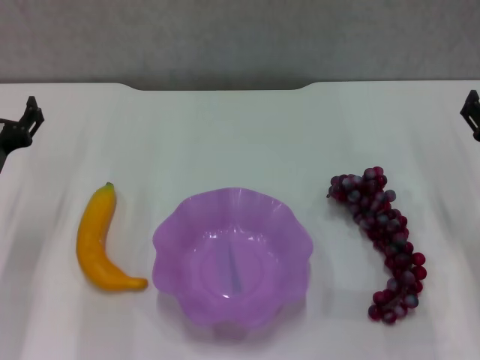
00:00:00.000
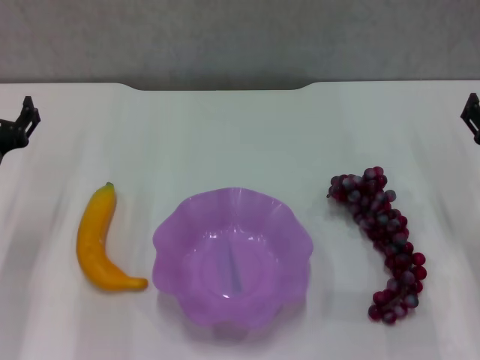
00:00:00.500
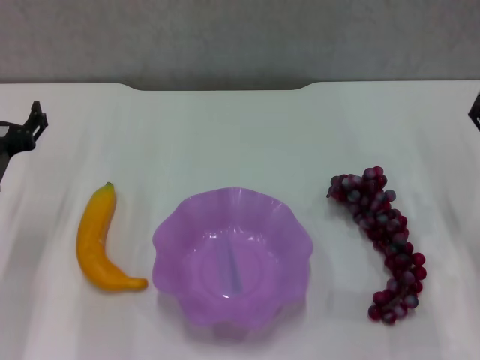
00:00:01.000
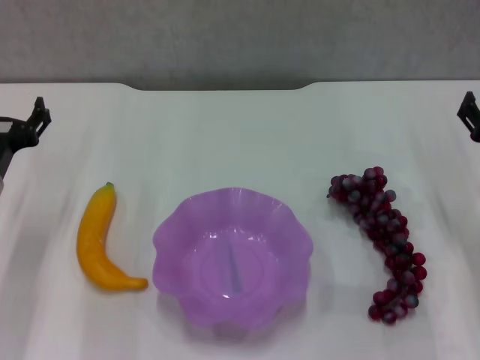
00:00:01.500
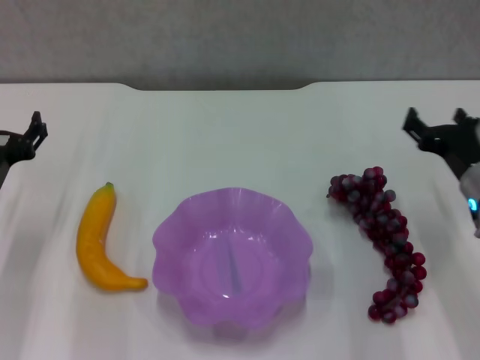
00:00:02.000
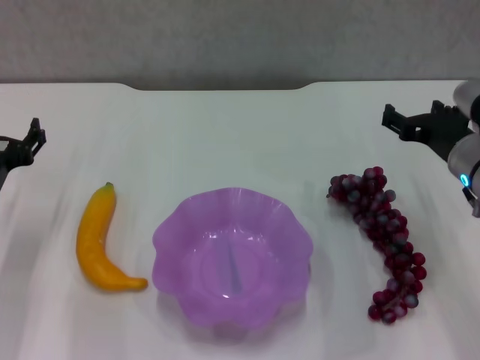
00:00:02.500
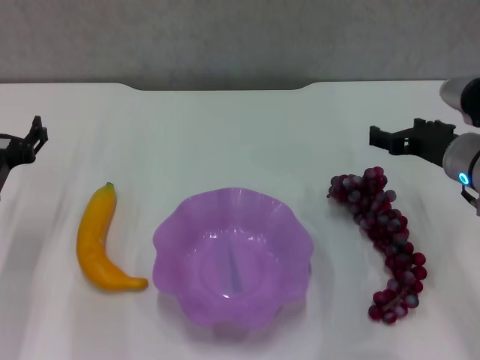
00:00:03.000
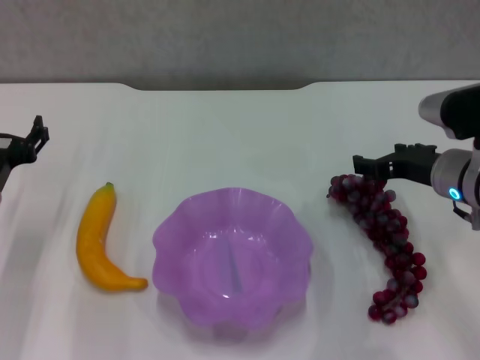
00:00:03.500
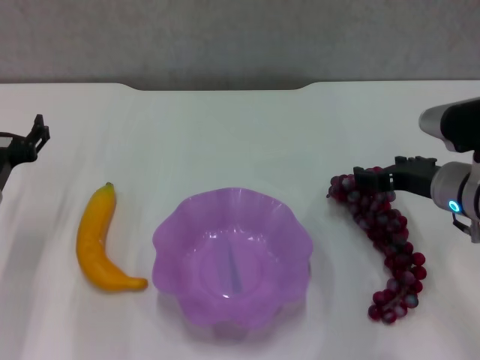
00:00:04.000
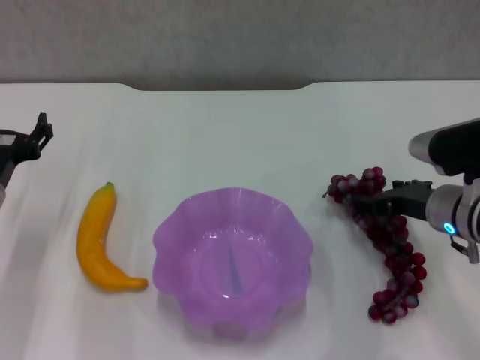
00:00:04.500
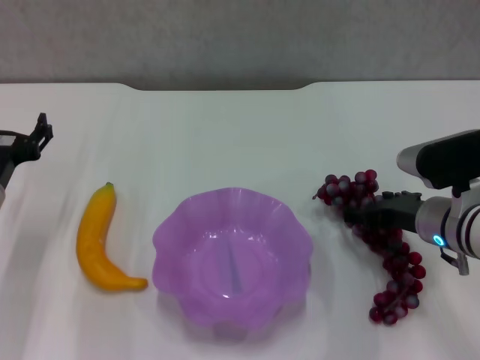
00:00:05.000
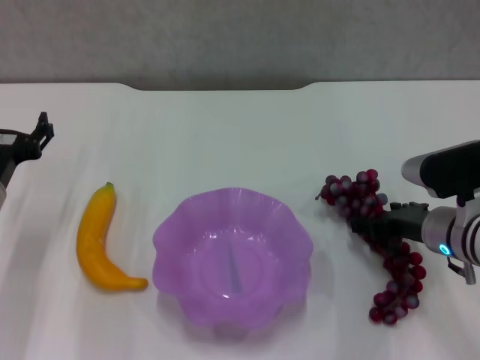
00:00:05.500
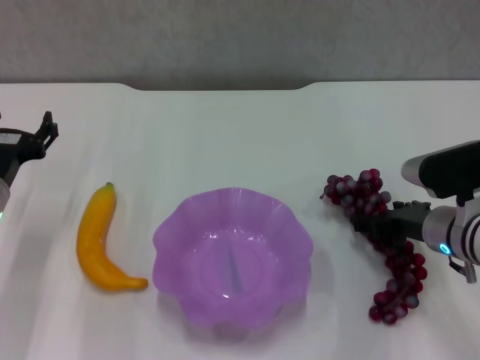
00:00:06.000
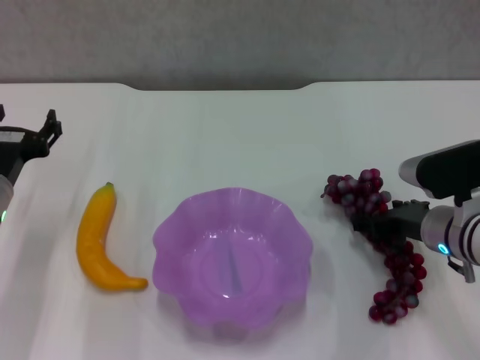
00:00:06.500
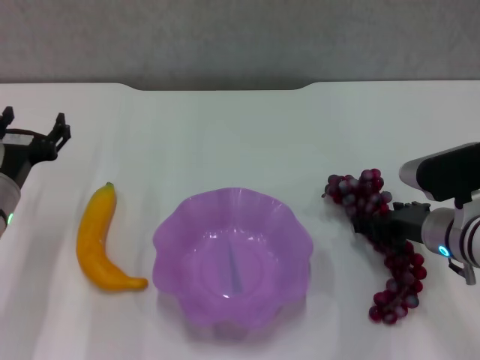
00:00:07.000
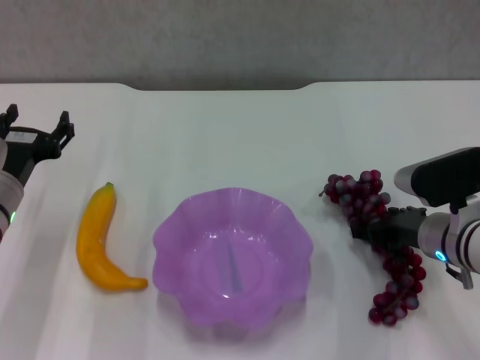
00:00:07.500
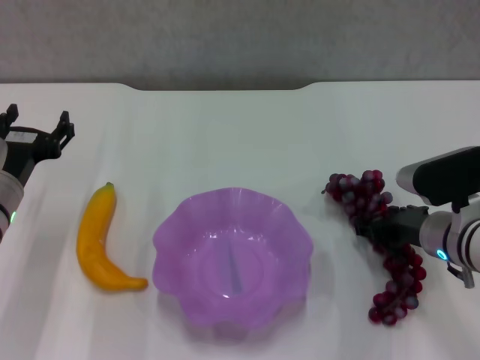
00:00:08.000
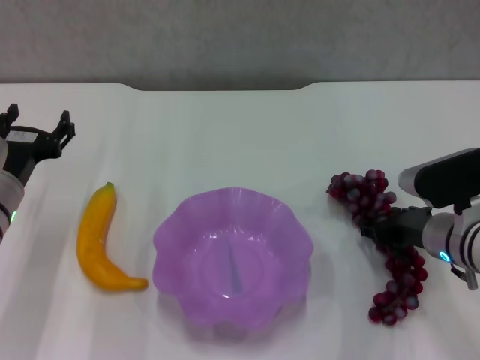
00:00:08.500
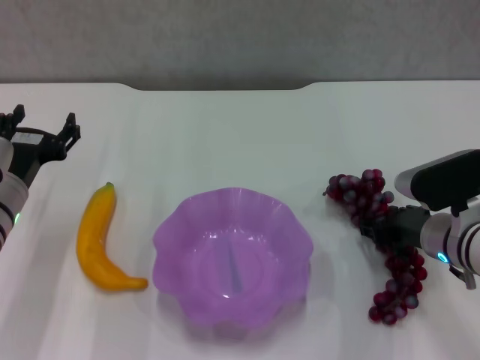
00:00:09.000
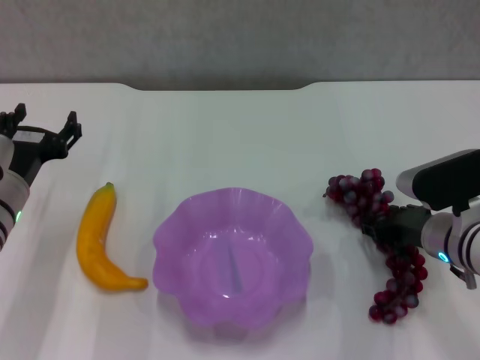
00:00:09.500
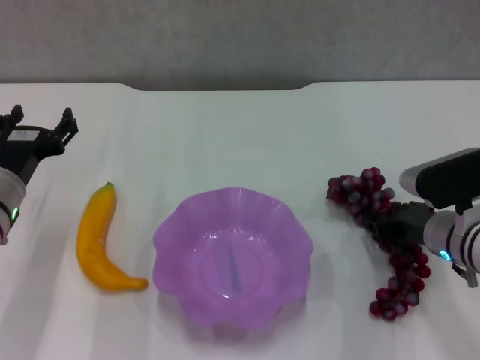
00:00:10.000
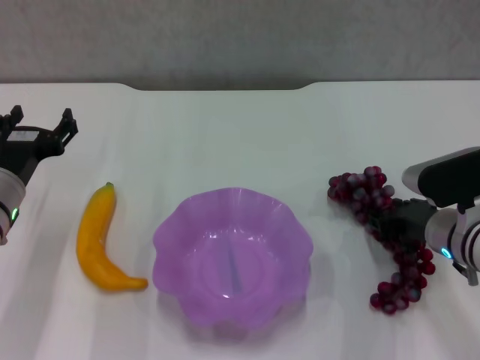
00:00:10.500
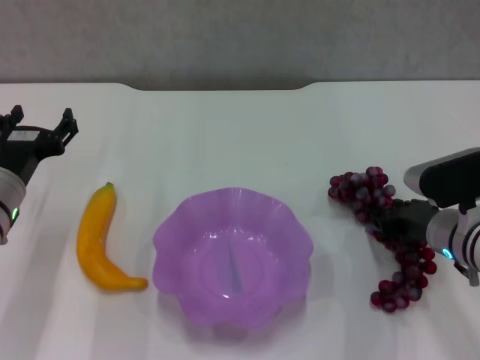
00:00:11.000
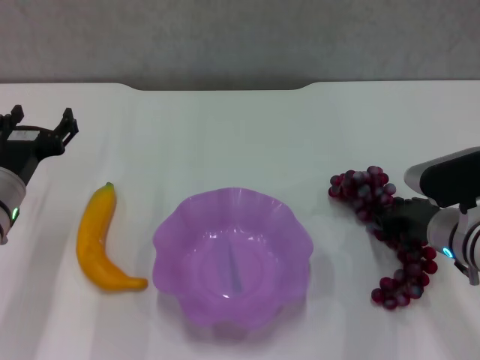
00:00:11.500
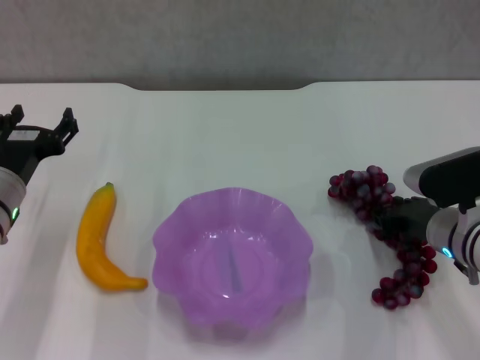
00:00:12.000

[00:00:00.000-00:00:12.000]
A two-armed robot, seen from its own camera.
Step, 00:00:00.000 to 00:00:09.500: Grasp the grape with right gripper.
00:00:00.000 to 00:00:02.000: There are only small adjustments of the grippers.
00:00:04.000 to 00:00:06.000: The grippers stay close to where they were, moving slightly.
00:00:06.000 to 00:00:08.000: Both grippers stay about where they are.
00:00:08.000 to 00:00:10.000: The grippers stay close to where they were, moving slightly.
00:00:10.000 to 00:00:12.000: Both grippers stay about where they are.

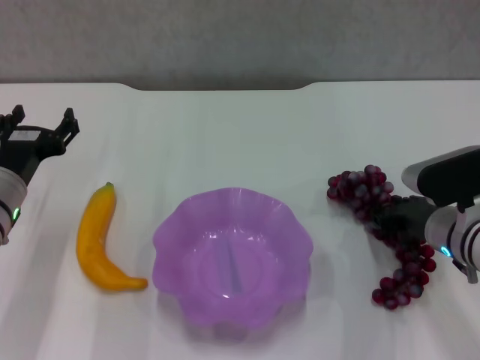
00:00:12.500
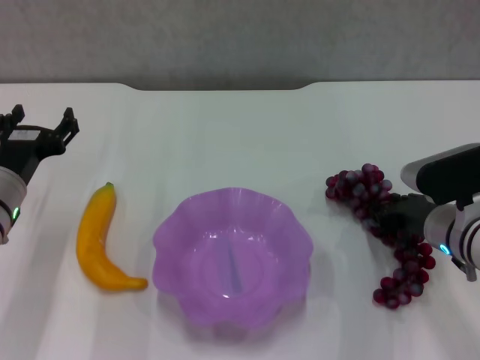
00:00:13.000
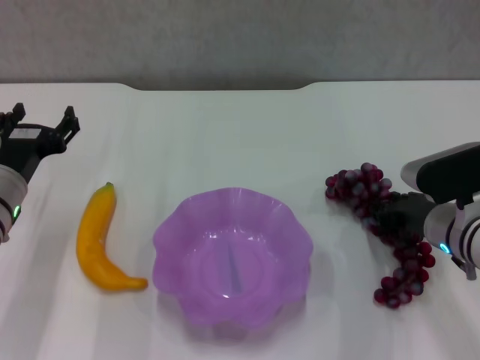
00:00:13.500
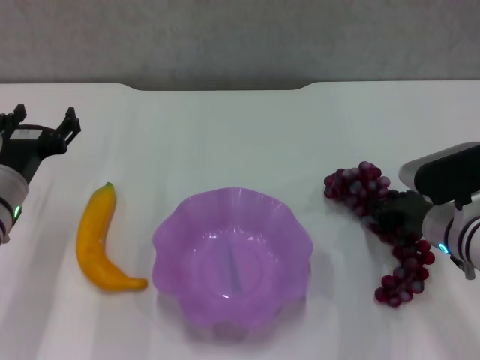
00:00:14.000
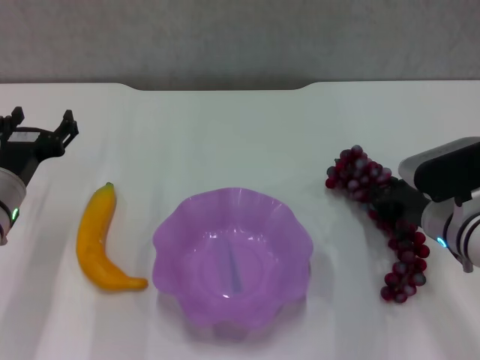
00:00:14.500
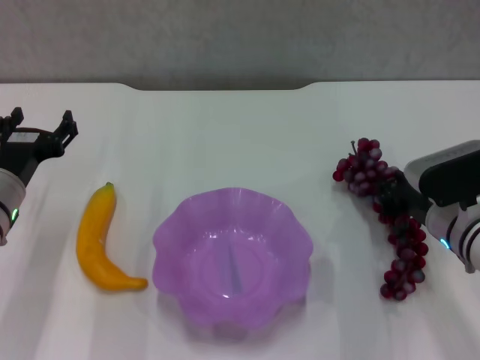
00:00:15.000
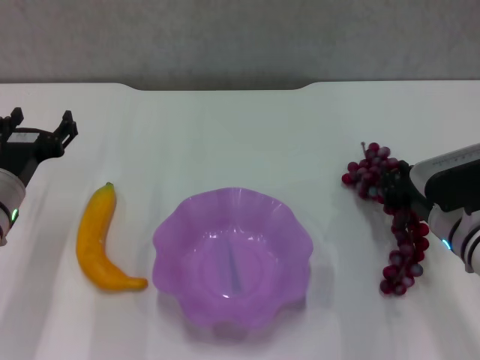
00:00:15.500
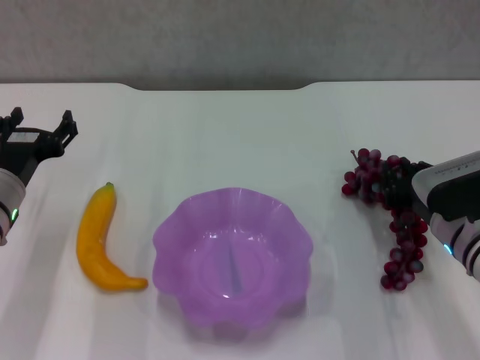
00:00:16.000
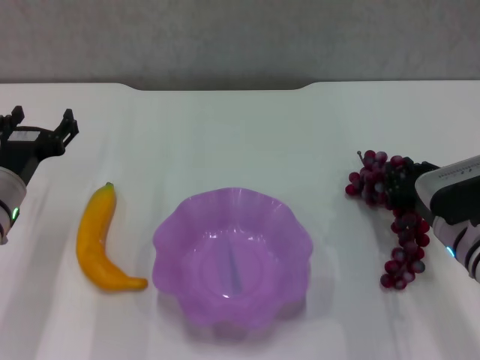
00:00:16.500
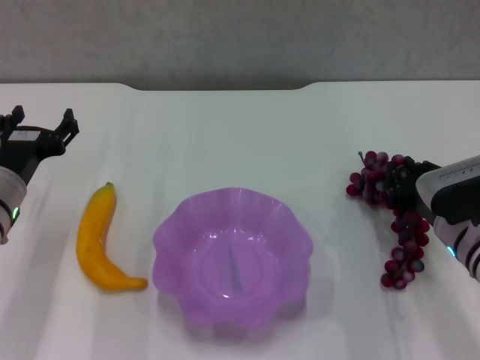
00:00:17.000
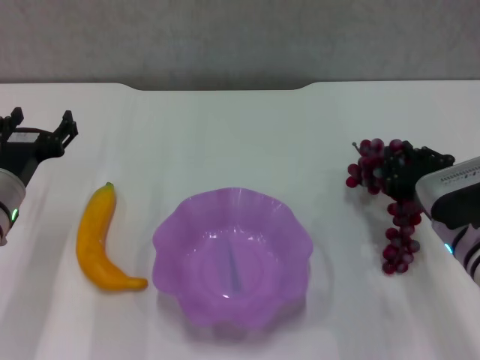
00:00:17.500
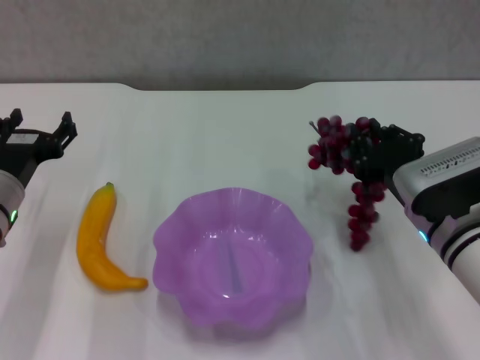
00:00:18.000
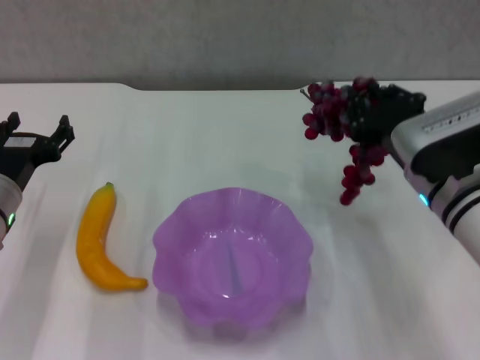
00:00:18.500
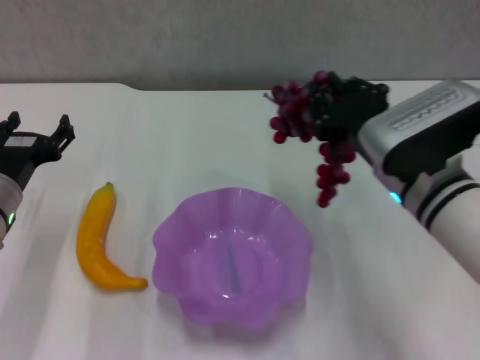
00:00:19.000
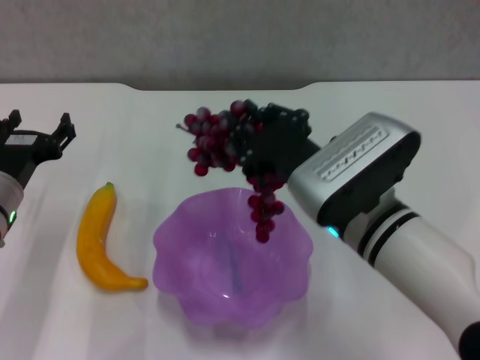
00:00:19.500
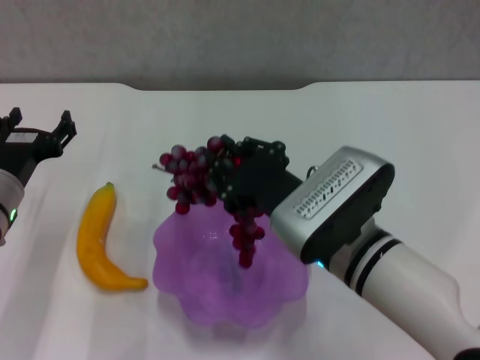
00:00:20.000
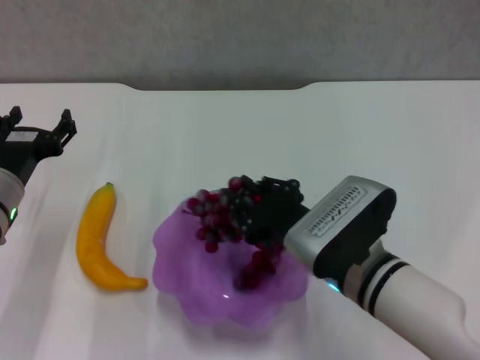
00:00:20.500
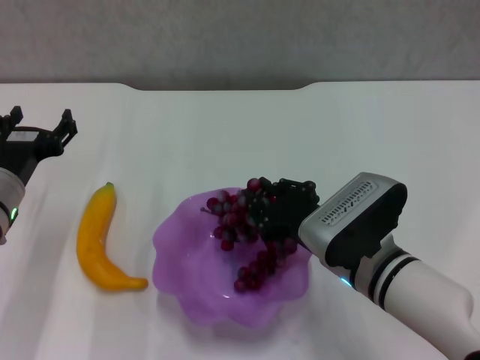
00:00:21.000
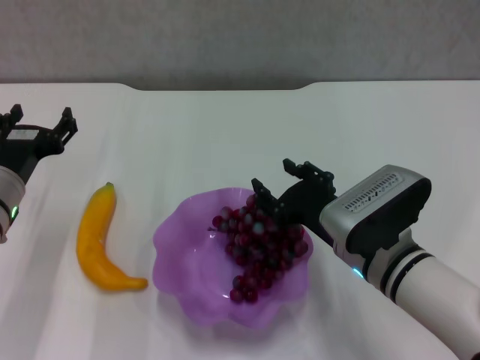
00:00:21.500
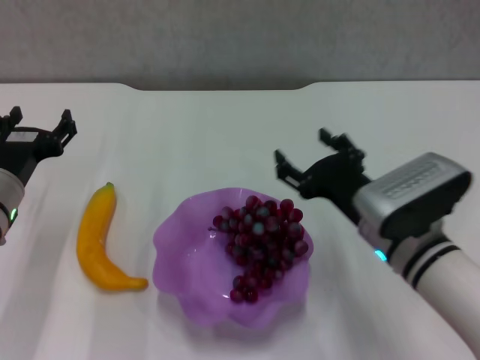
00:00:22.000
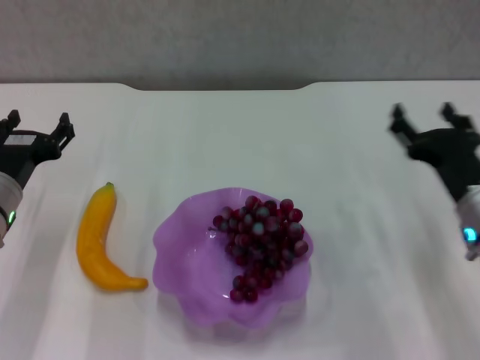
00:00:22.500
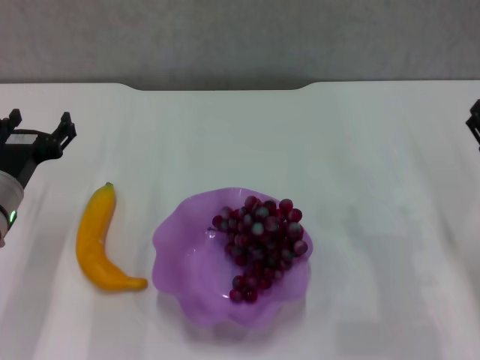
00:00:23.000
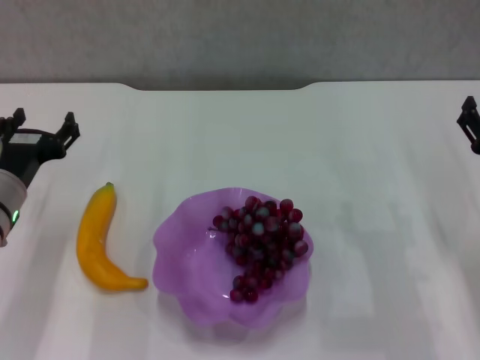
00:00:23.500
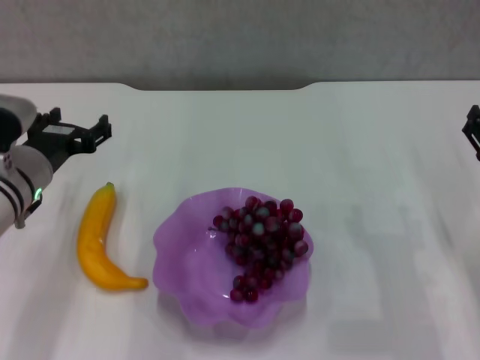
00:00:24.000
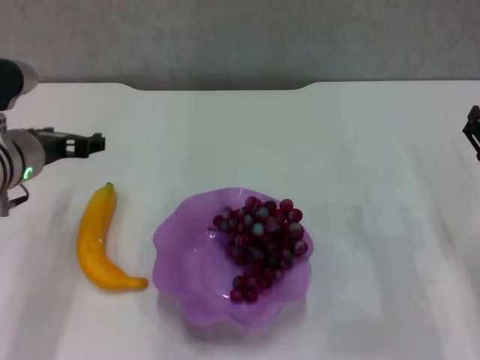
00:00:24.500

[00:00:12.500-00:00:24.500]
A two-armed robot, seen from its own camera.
Step, 00:00:12.500 to 00:00:21.000: Place the grape in the purple plate with right gripper.
00:00:12.500 to 00:00:16.500: There are only small adjustments of the grippers.
00:00:16.500 to 00:00:18.500: The right gripper is displaced upward and to the left by some 10 cm.
00:00:18.500 to 00:00:20.500: The right gripper shifts approximately 10 cm to the left and backward.
00:00:20.500 to 00:00:22.500: The right gripper travels to the right by some 15 cm, and opens.
00:00:22.500 to 00:00:24.500: The left gripper moves upward, roughly 5 cm; the right gripper shifts about 5 cm to the right.

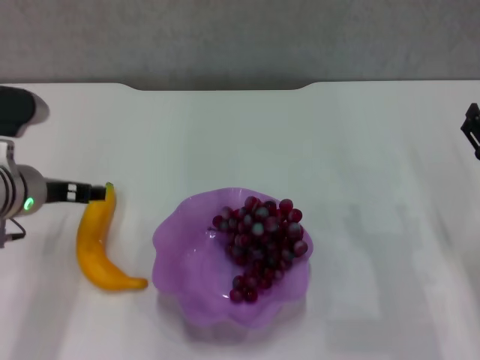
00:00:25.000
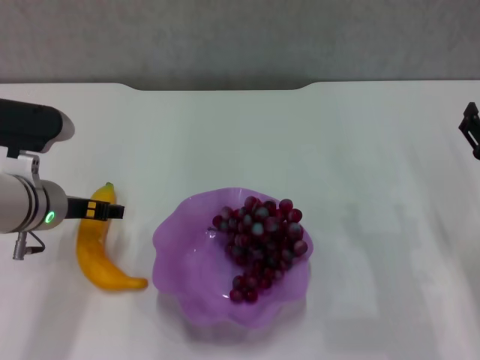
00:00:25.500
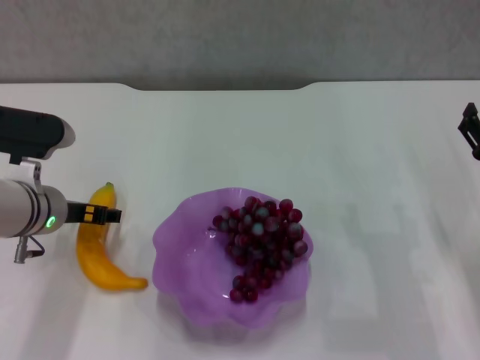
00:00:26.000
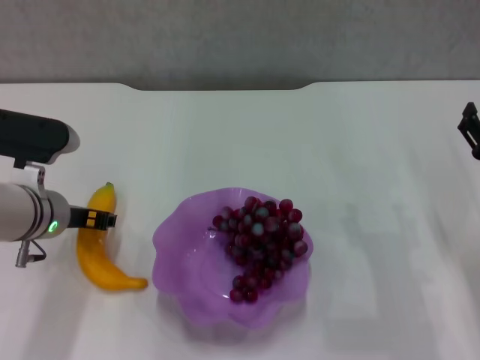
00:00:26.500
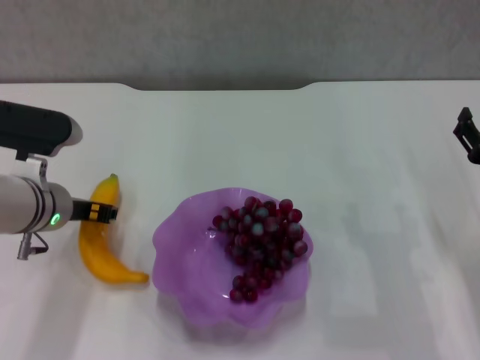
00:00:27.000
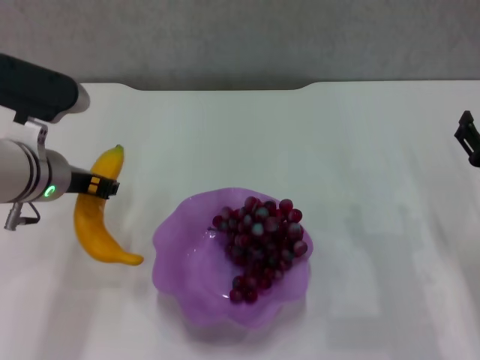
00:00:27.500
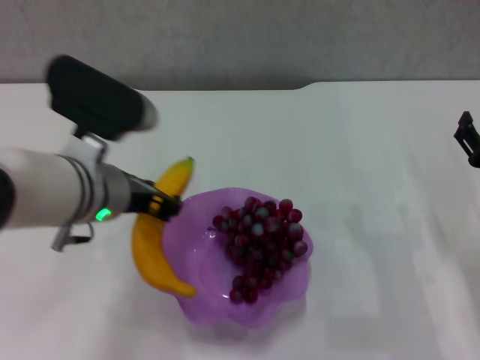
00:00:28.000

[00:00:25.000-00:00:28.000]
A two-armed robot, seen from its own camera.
00:00:25.000 to 00:00:26.500: The grippers make only small movements.
00:00:26.500 to 00:00:28.000: The left gripper shifts some 10 cm upward and to the right, and closes its fingers.
